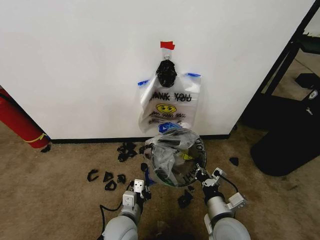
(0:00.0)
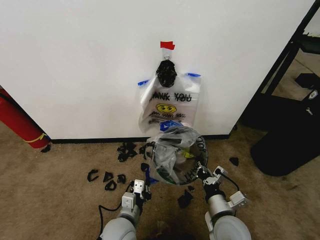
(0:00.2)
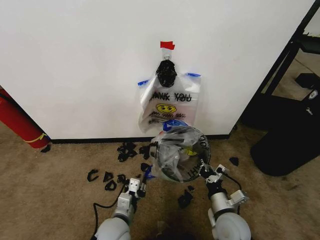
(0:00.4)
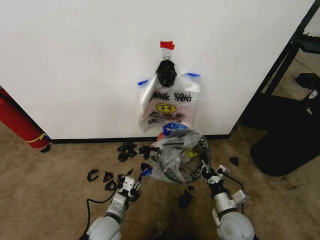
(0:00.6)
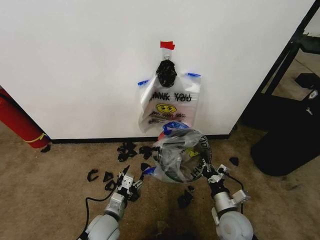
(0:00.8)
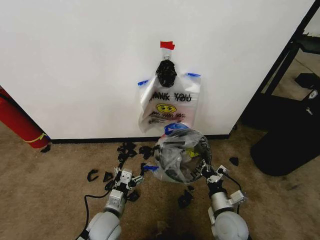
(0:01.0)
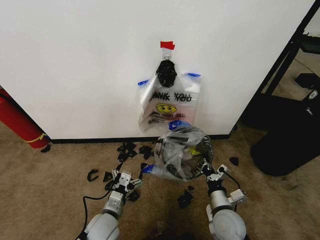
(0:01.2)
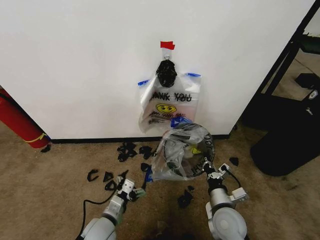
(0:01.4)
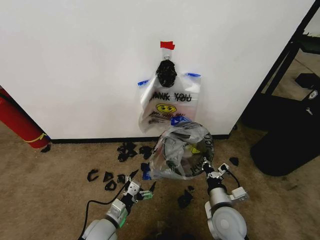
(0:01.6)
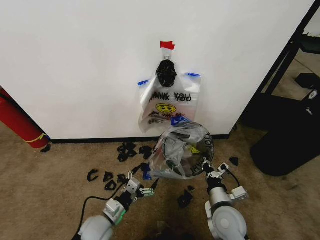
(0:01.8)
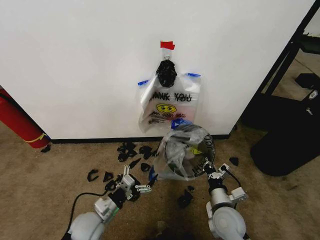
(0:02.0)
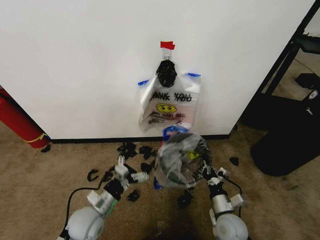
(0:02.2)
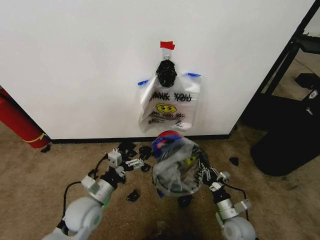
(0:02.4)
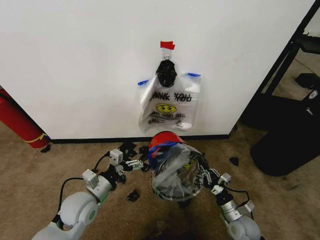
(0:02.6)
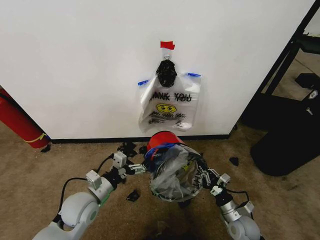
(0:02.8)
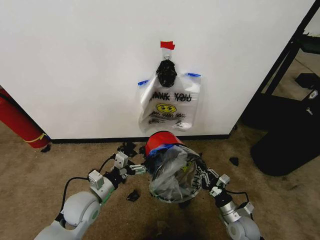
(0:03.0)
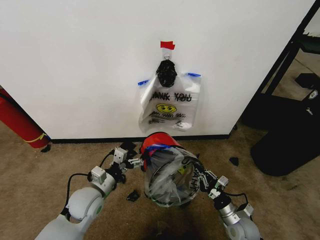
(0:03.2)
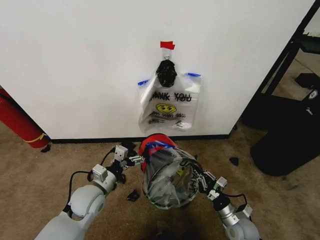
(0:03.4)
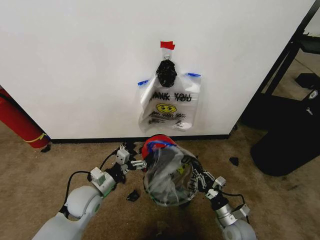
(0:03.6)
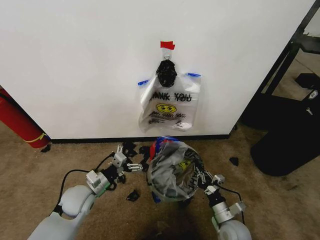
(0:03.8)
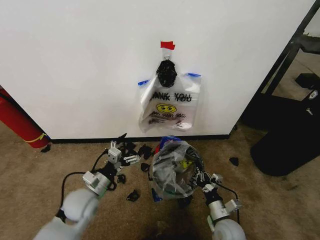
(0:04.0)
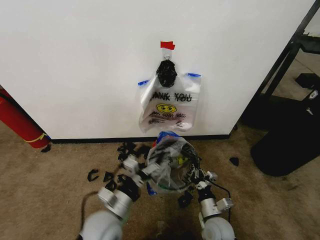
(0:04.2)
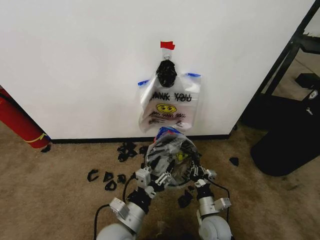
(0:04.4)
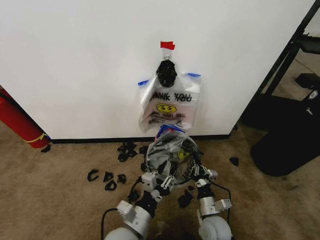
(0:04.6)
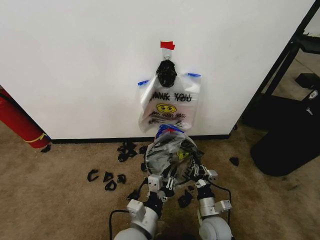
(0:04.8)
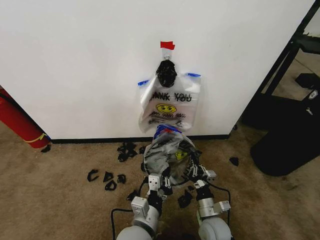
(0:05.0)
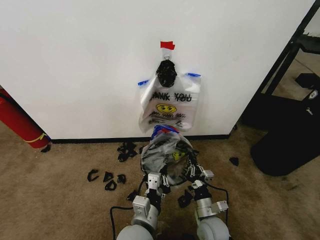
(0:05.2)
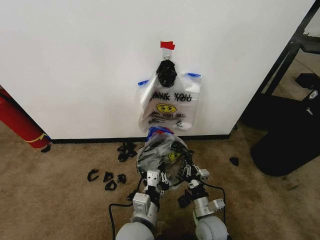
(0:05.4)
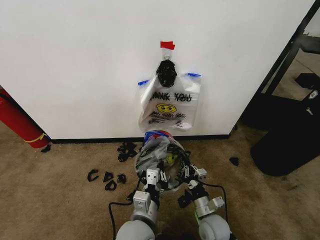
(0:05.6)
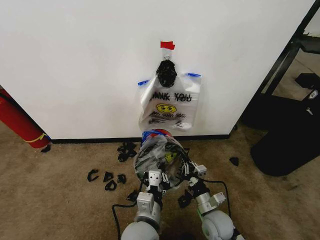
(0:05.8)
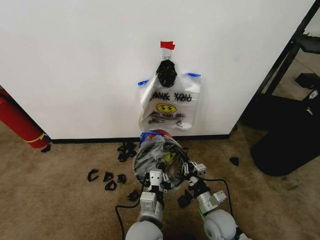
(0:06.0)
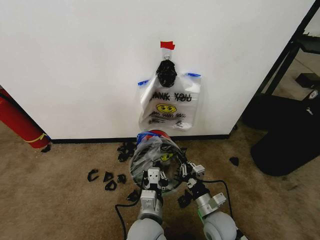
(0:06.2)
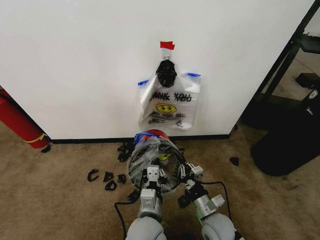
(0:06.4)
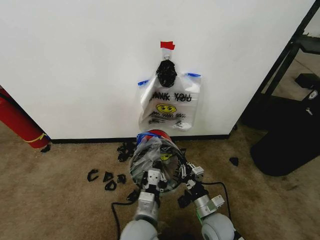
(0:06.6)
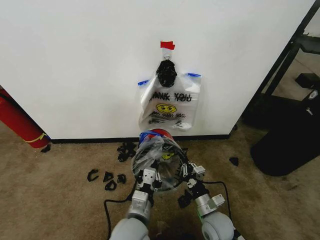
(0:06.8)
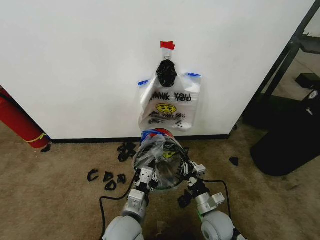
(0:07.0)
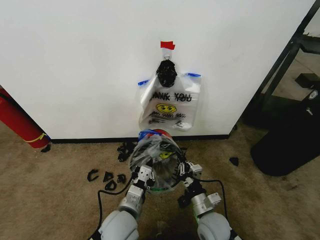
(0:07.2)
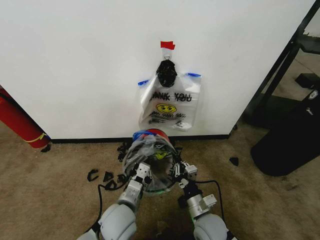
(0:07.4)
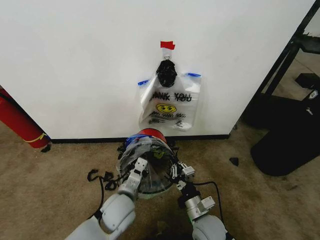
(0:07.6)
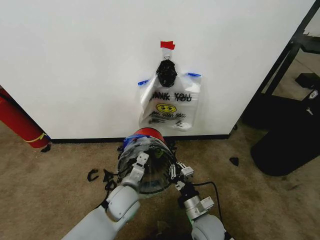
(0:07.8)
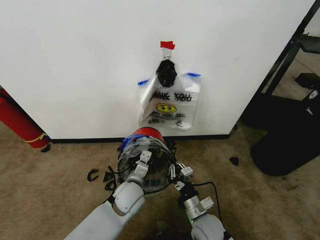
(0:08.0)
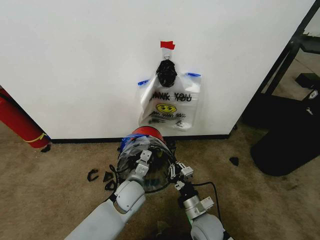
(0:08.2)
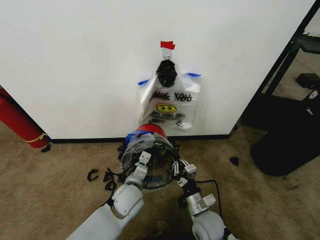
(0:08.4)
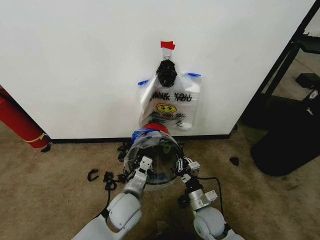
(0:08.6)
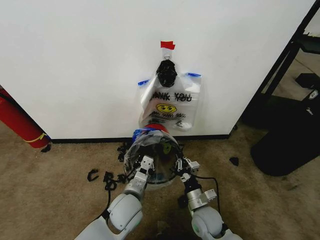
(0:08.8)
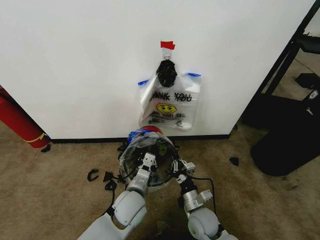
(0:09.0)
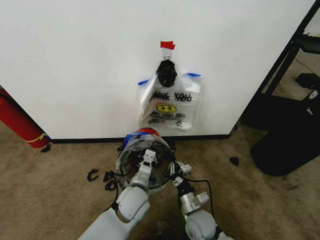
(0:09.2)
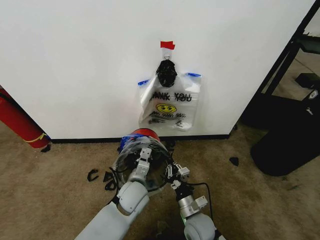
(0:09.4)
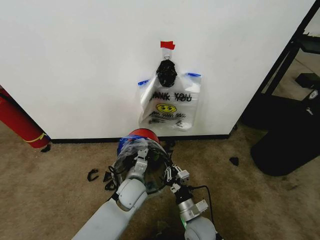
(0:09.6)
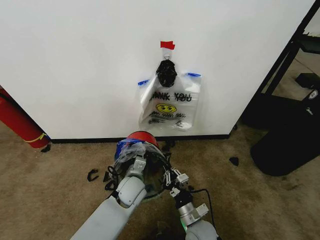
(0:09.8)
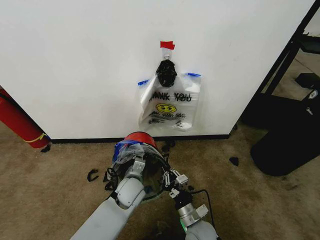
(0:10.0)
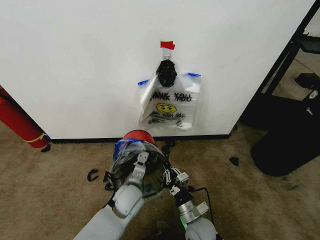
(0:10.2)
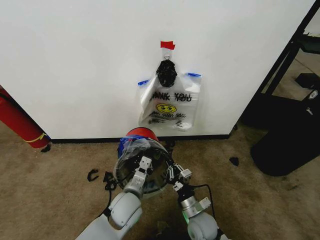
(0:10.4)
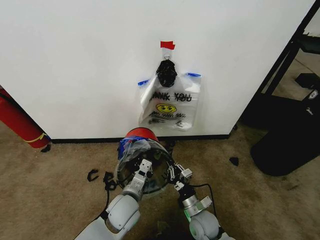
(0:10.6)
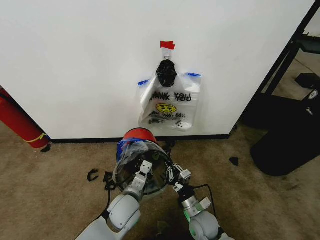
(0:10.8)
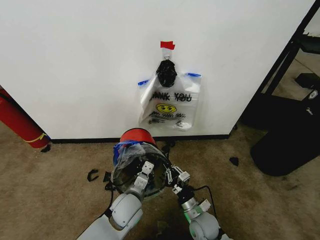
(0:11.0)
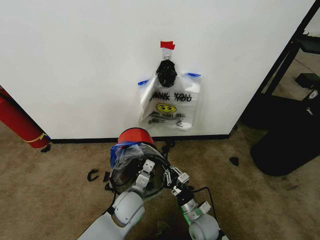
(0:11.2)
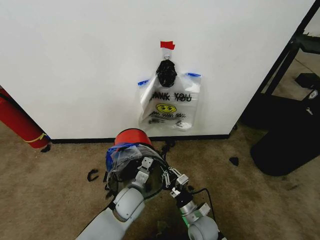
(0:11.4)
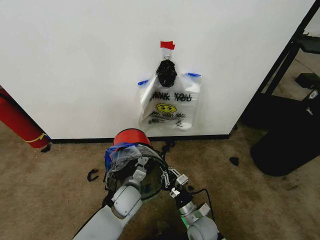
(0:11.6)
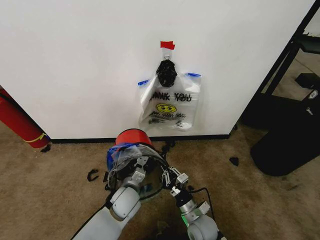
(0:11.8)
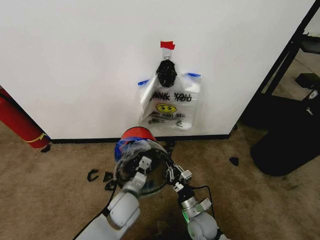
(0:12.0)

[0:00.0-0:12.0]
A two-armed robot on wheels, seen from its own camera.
Task of the whole recording: Pick up the garbage bag from the wall and place it over the trash bin.
0:00.0 to 0:01.6: The left gripper moves to the left, approximately 5 cm, and opens its fingers.
0:01.6 to 0:03.0: The left gripper heads upward and forward, covering some 10 cm, while the right gripper heads downward and to the right, covering approximately 15 cm.
0:03.0 to 0:04.4: The left gripper travels to the right and backward by approximately 15 cm. Meanwhile the right gripper goes roughly 10 cm to the left.
0:04.4 to 0:06.0: The left gripper is displaced to the right by some 10 cm, and closes.
0:06.0 to 0:07.6: The right gripper shifts by approximately 5 cm; the left gripper goes approximately 10 cm to the left and forward.
0:10.4 to 0:12.0: The grippers stay close to where they were, moving slightly.

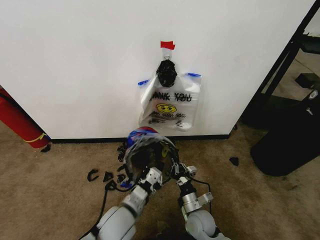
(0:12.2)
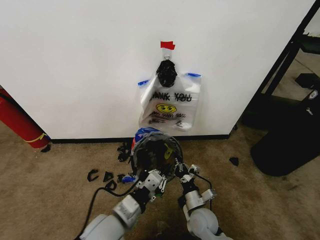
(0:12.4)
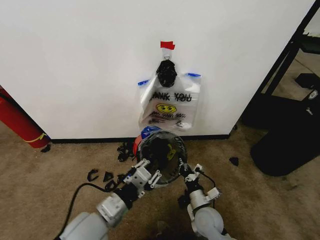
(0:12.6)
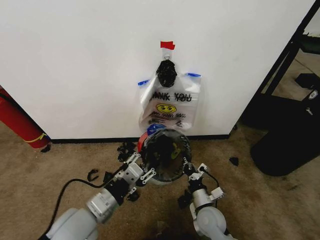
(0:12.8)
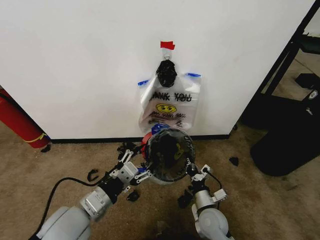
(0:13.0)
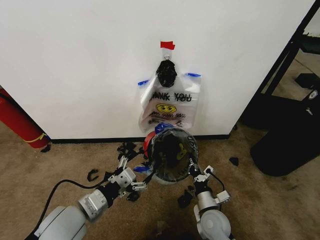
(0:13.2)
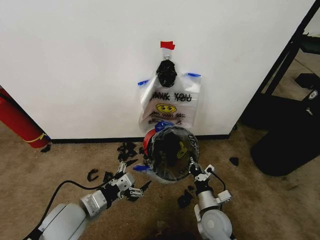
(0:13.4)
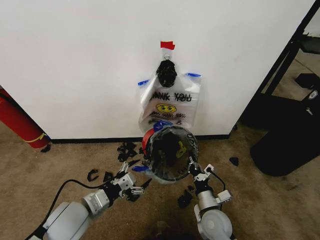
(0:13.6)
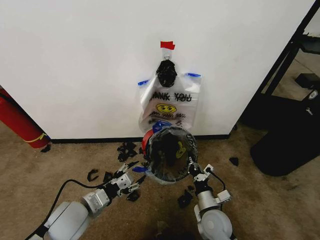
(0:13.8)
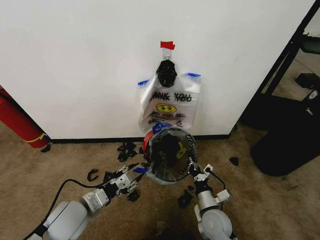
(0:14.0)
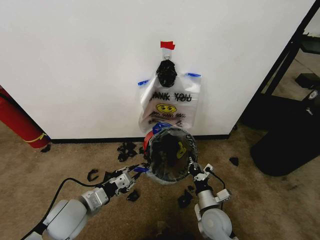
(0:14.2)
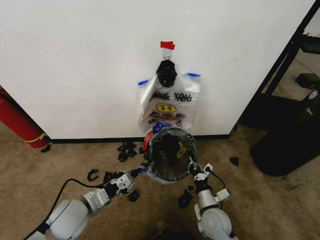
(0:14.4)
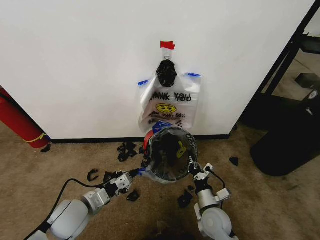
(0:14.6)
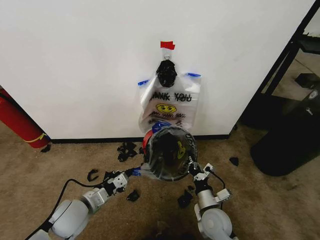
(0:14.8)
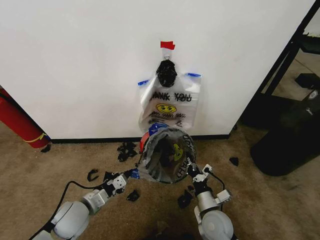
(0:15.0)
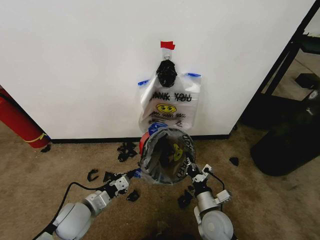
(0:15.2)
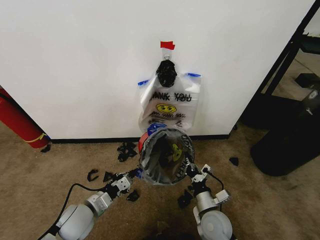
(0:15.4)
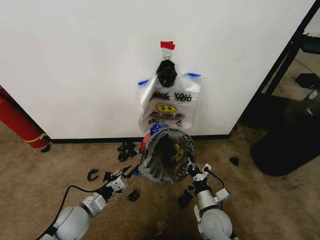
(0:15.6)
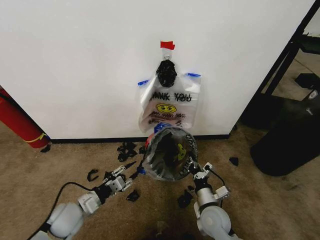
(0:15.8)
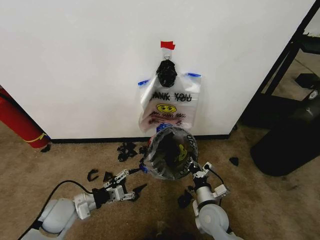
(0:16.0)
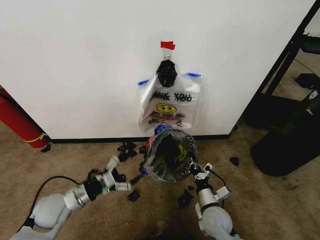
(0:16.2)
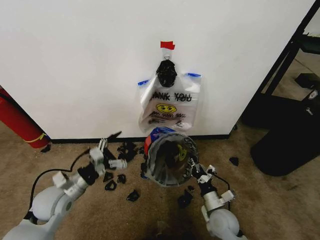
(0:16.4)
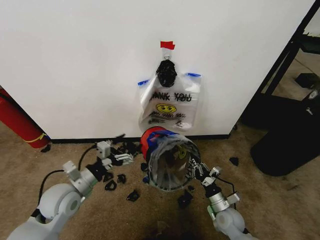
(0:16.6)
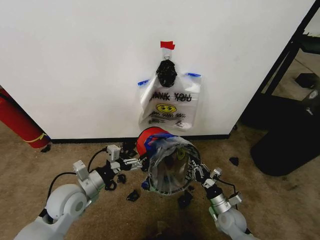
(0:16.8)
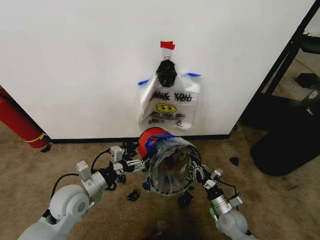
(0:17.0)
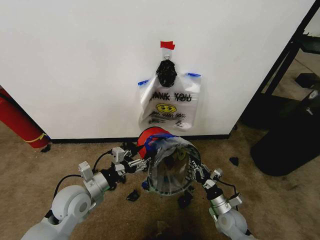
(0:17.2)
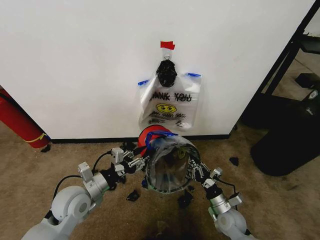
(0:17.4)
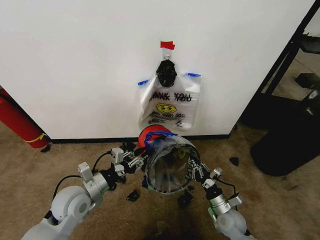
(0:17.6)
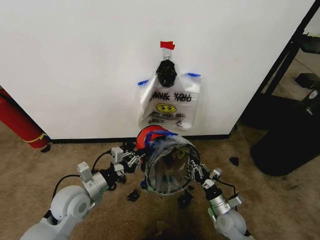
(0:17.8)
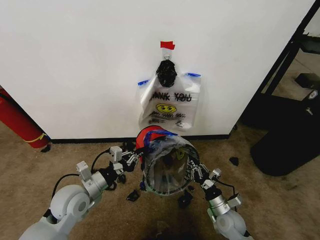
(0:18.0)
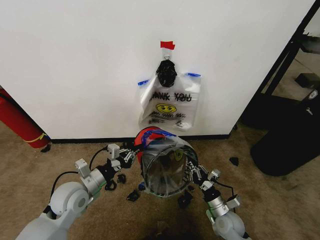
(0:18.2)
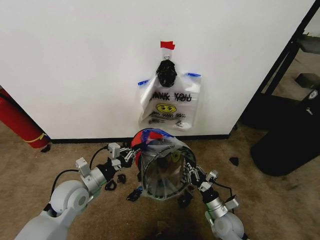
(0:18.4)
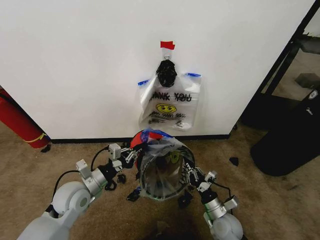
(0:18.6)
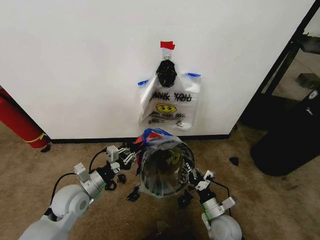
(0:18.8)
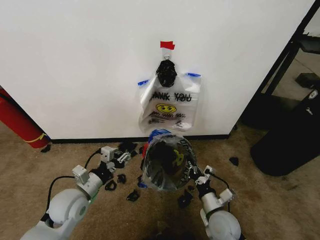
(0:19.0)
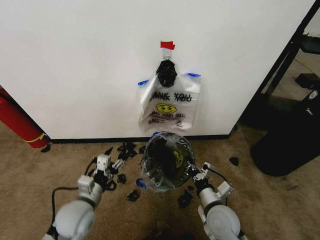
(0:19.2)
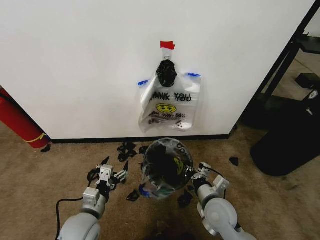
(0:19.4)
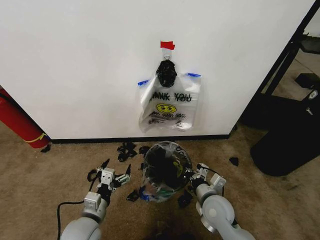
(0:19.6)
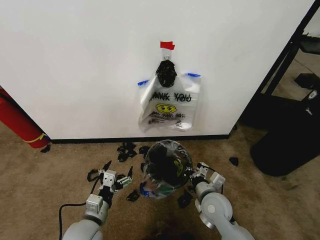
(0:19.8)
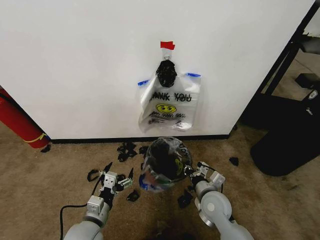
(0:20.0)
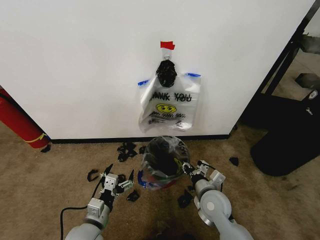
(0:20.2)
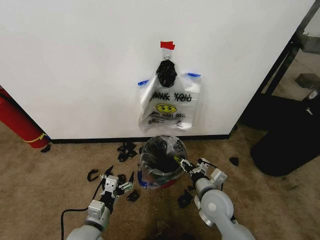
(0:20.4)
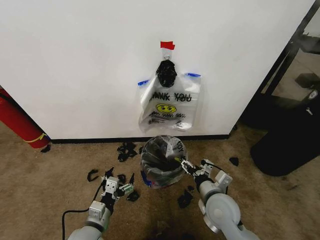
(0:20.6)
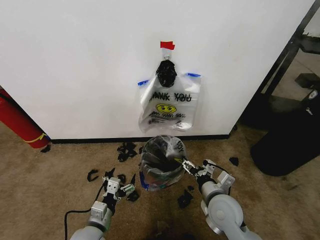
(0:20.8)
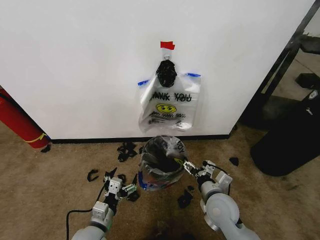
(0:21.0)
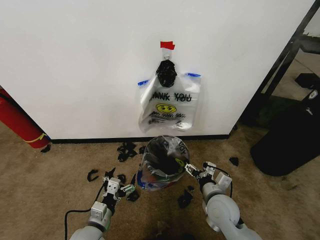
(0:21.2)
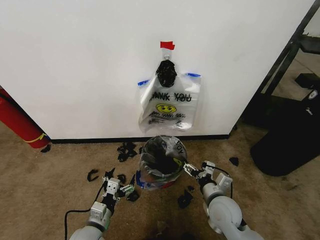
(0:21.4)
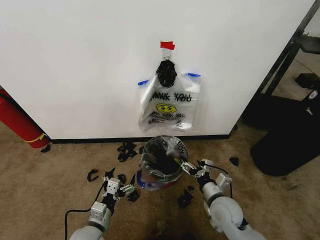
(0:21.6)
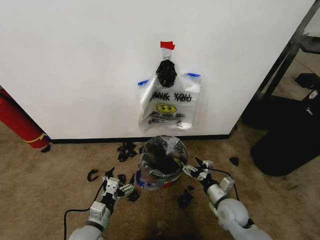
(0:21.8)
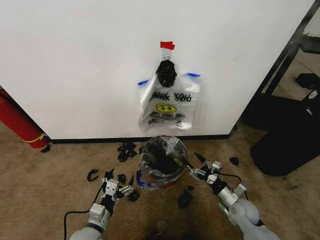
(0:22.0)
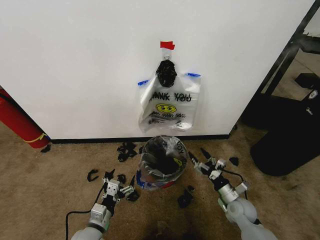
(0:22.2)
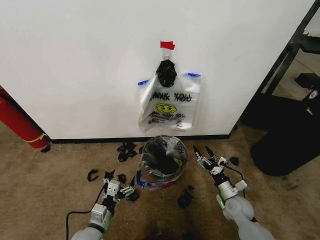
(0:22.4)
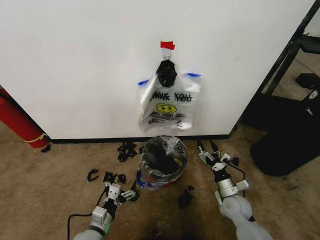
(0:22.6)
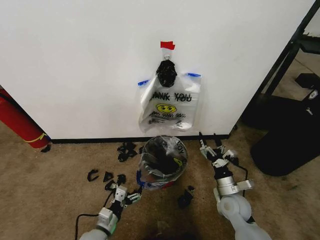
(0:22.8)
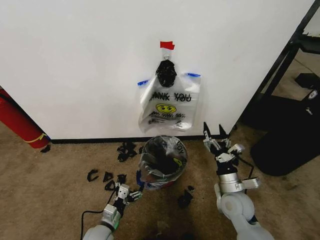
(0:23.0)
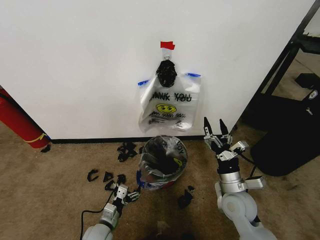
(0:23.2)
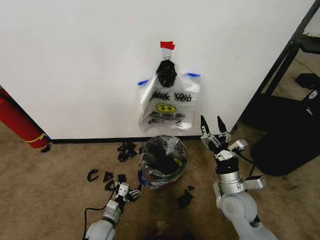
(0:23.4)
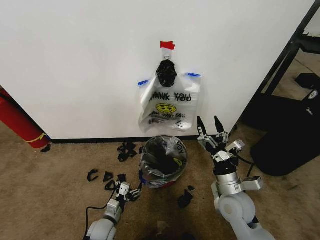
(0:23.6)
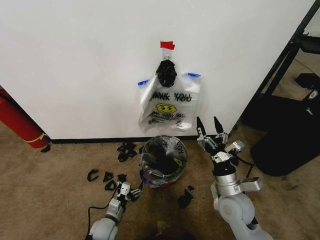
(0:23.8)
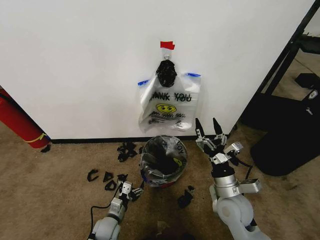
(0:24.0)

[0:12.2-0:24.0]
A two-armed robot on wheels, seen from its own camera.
Task of the whole recording: Pick up the garbage bag from the wall and place it over the trash bin.
0:12.2 to 0:13.6: The left gripper heads to the left, covering some 10 cm, and opens; the right gripper changes place by roughly 5 cm.
0:13.6 to 0:15.2: The left gripper goes some 5 cm downward, and closes its fingers.
0:15.2 to 0:16.6: The left gripper goes approximately 5 cm upward, and opens up. The right gripper goes approximately 10 cm to the right and downward.
0:16.6 to 0:18.2: The left gripper closes.
0:18.2 to 0:19.6: The right gripper travels upward and to the left by approximately 15 cm. Meanwhile the left gripper travels backward and downward by approximately 10 cm, and opens its fingers.
0:19.6 to 0:21.0: The right gripper opens.
0:21.0 to 0:22.6: The right gripper goes some 15 cm downward and to the right.
0:22.6 to 0:24.0: The right gripper shifts approximately 15 cm upward and to the left. The left gripper is displaced downward and forward by approximately 10 cm.
